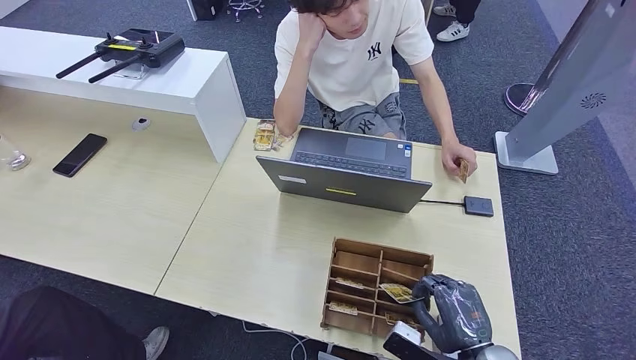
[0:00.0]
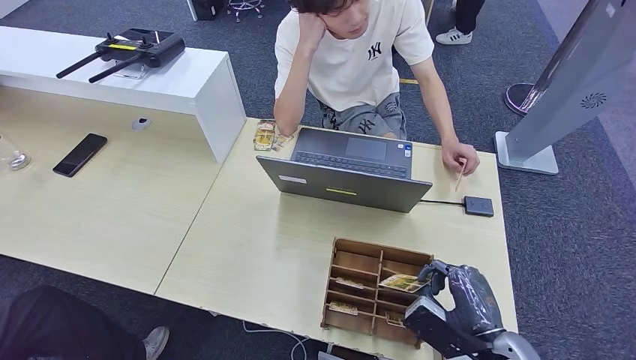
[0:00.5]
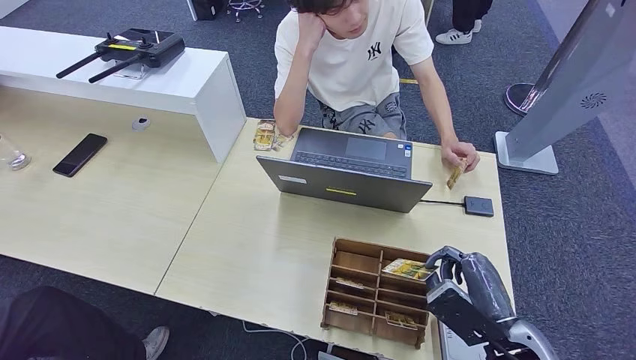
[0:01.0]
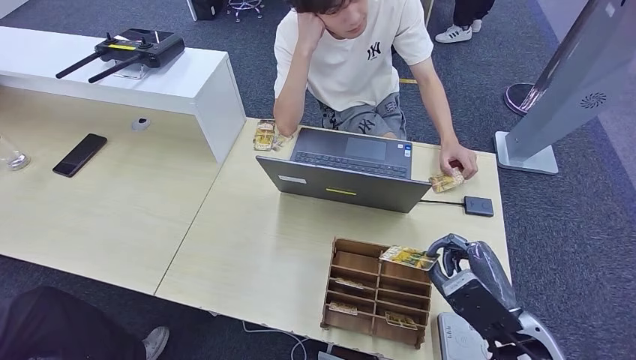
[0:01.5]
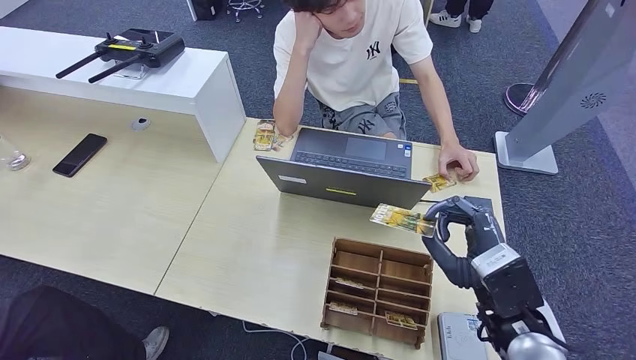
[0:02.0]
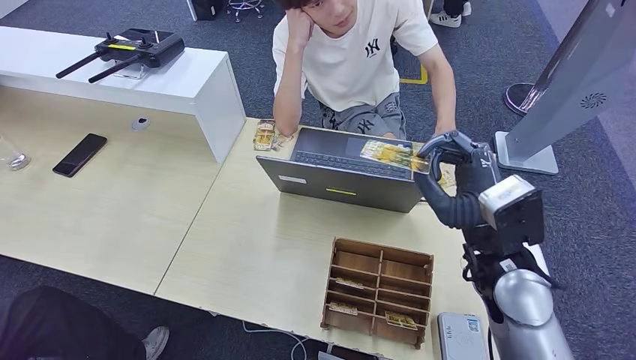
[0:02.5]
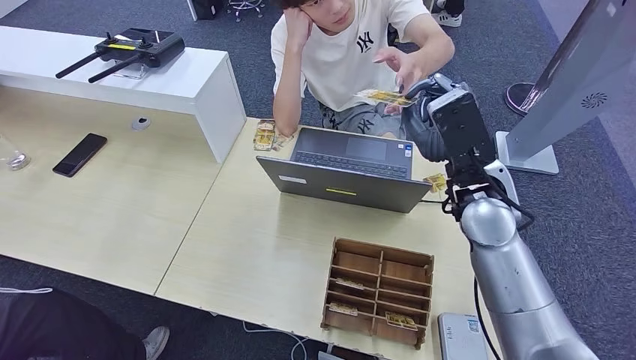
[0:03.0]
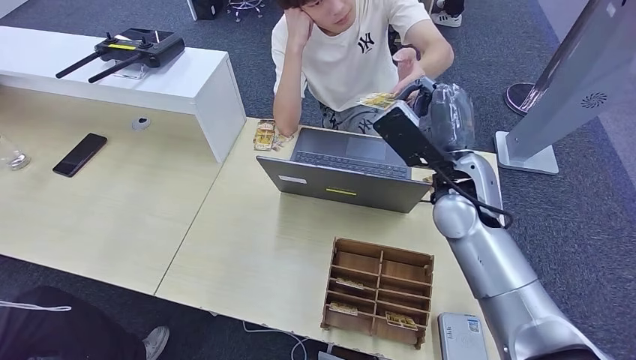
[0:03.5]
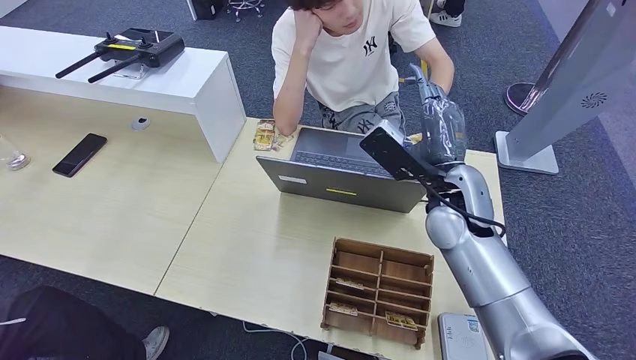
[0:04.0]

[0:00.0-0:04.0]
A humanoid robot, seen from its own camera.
Step, 0:01.5 to 0:04.0: Hand the room key to the person.
0:00.0 to 0:02.0: The right hand travels upward and forward by approximately 15 cm.
0:02.0 to 0:04.0: The right hand travels forward, to the left and upward by roughly 15 cm.
